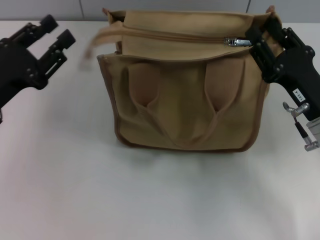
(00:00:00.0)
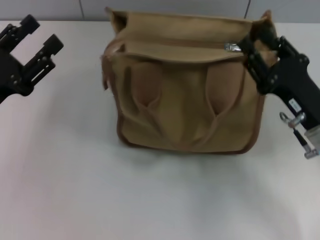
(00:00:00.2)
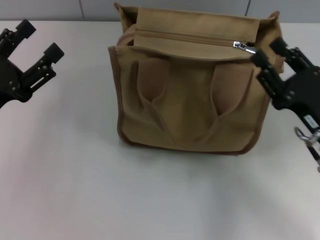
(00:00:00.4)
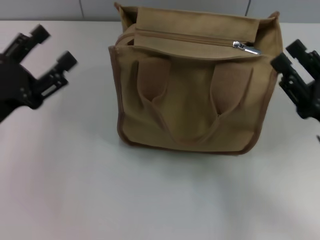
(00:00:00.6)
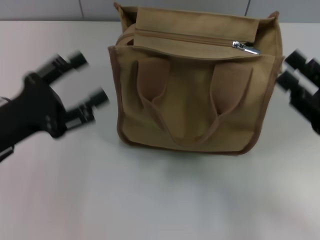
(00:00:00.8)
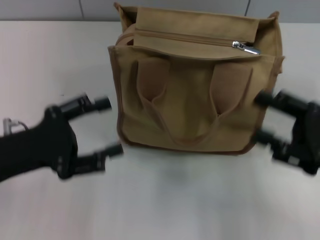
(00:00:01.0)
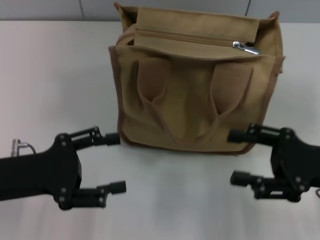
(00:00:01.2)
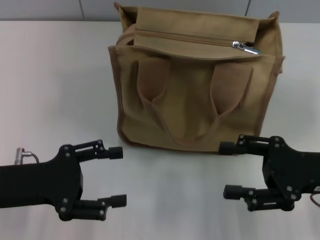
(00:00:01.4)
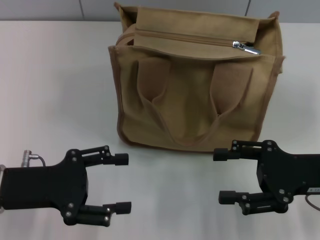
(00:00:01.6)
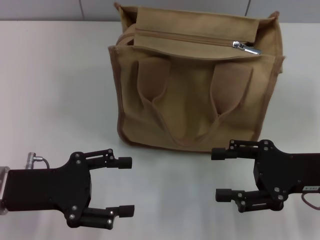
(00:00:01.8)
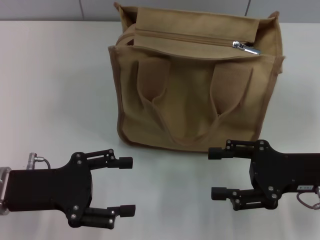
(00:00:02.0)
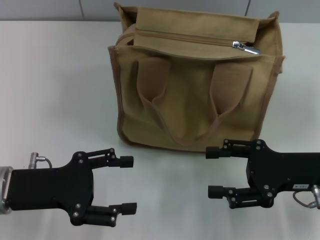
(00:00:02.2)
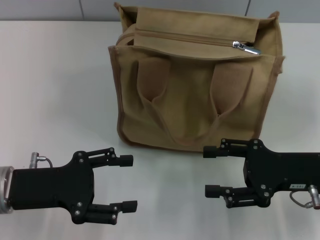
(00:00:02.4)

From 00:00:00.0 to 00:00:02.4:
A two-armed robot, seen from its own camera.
From 00:00:00.0 to 00:00:01.2: The left gripper shifts by approximately 5 cm, and opens. Meanwhile the right gripper ends up some 5 cm from where it was.
From 00:00:01.2 to 00:00:02.4: The grippers move only a little.
